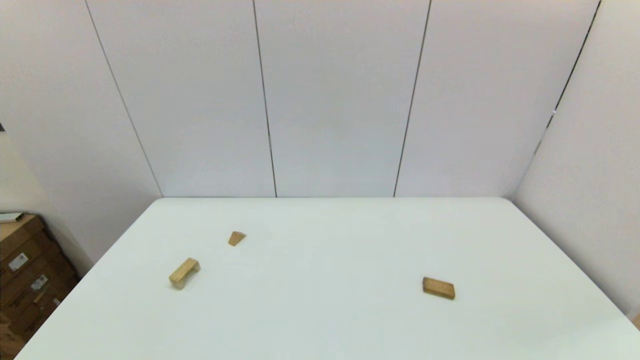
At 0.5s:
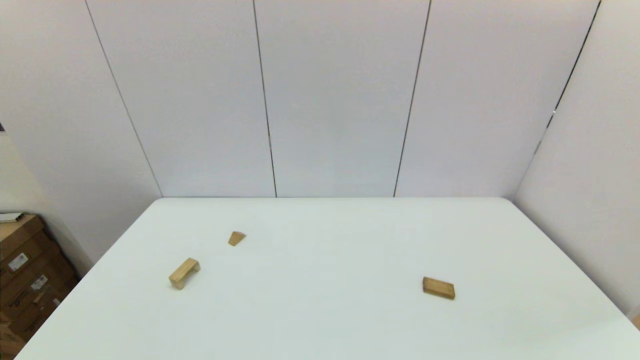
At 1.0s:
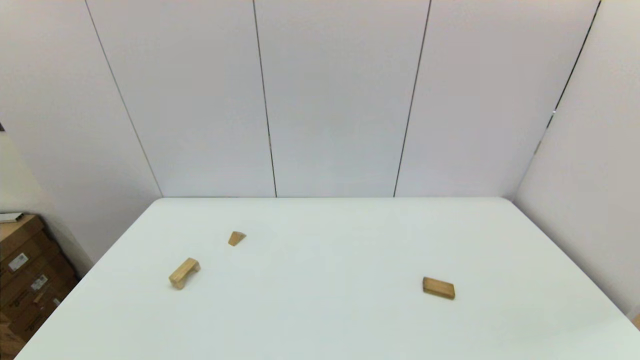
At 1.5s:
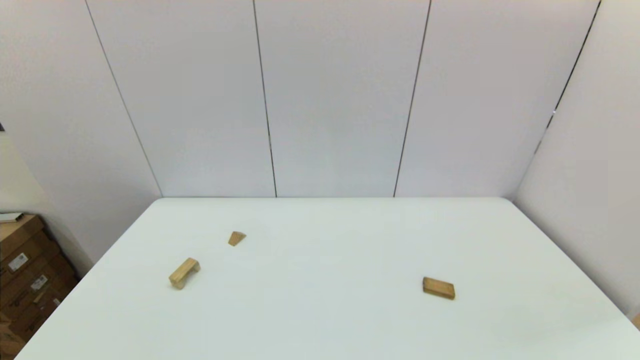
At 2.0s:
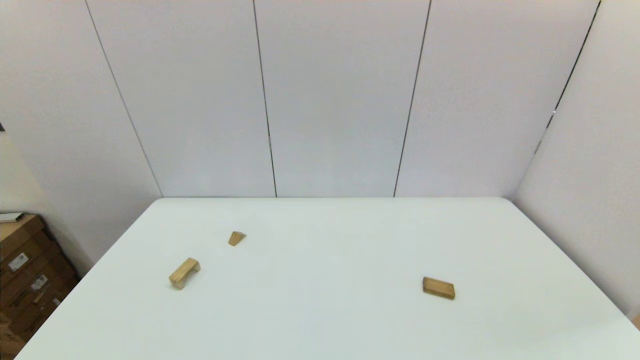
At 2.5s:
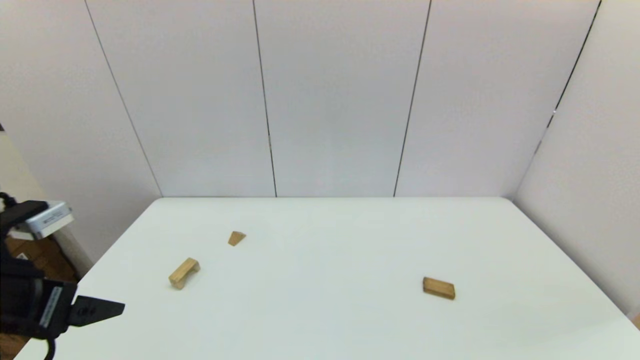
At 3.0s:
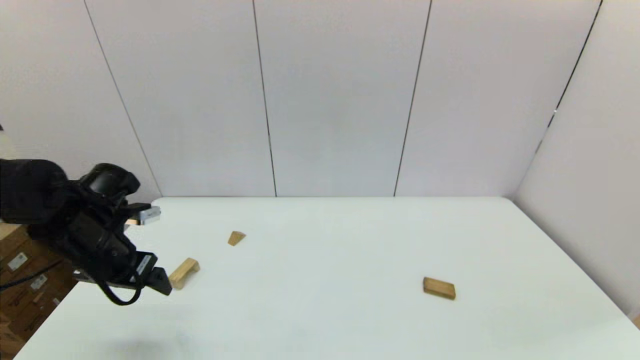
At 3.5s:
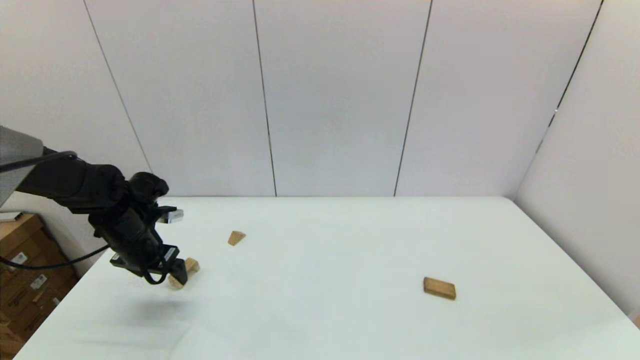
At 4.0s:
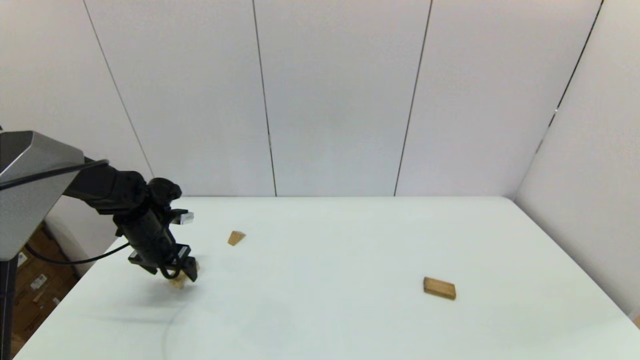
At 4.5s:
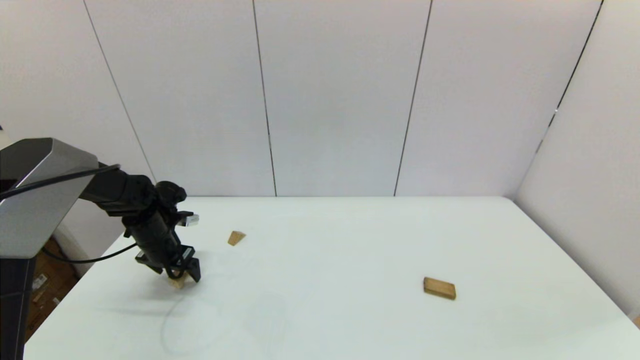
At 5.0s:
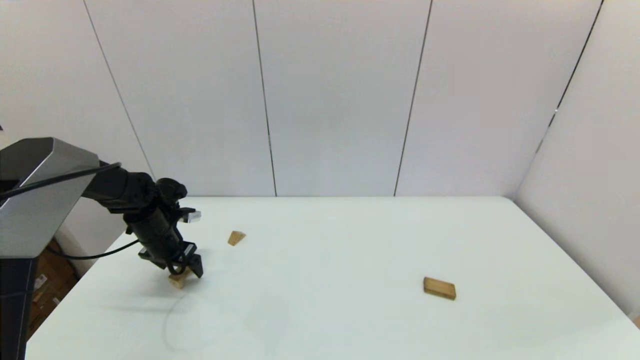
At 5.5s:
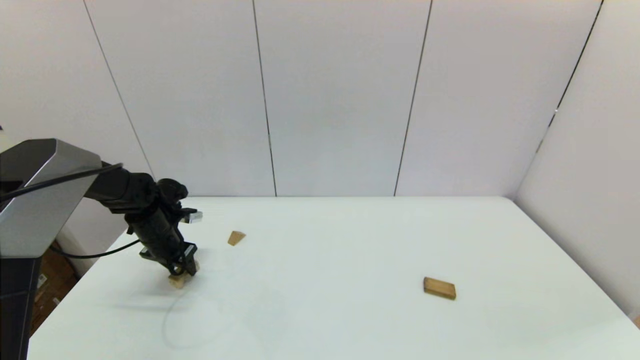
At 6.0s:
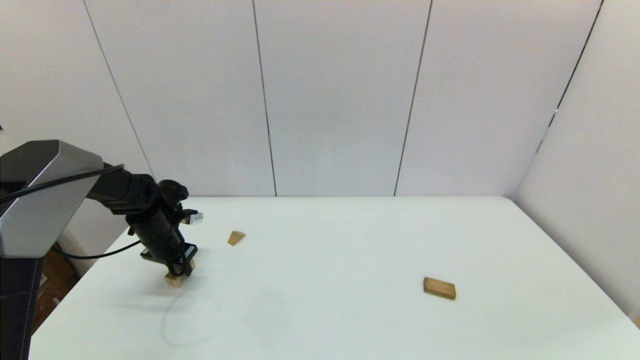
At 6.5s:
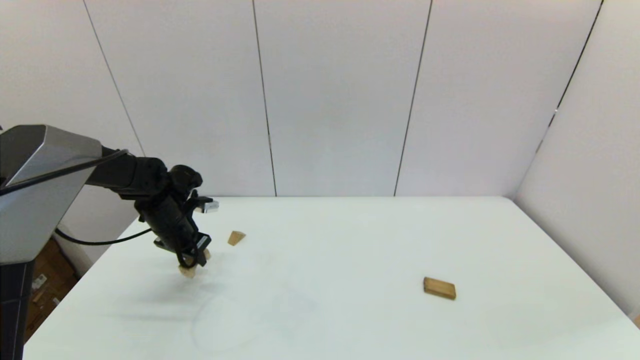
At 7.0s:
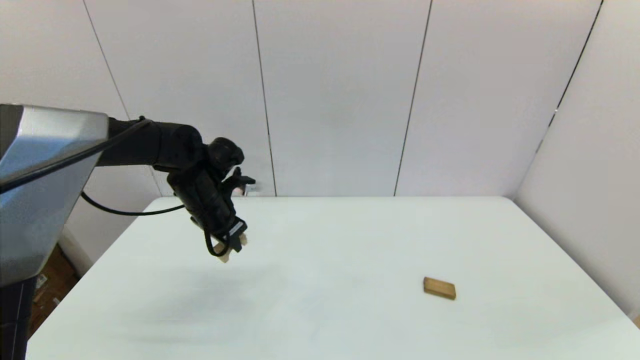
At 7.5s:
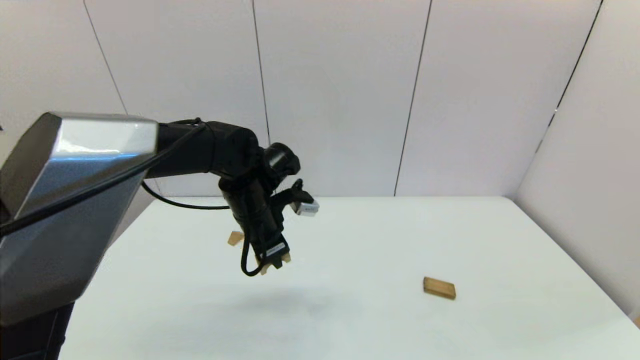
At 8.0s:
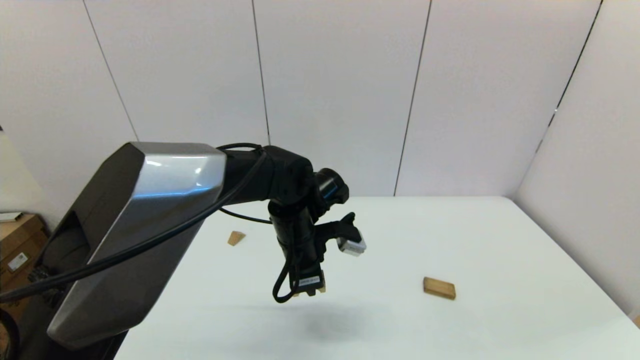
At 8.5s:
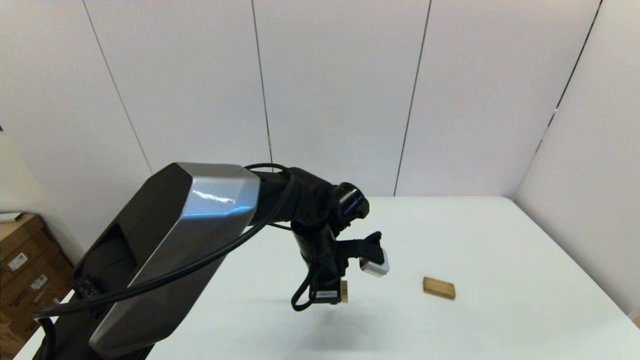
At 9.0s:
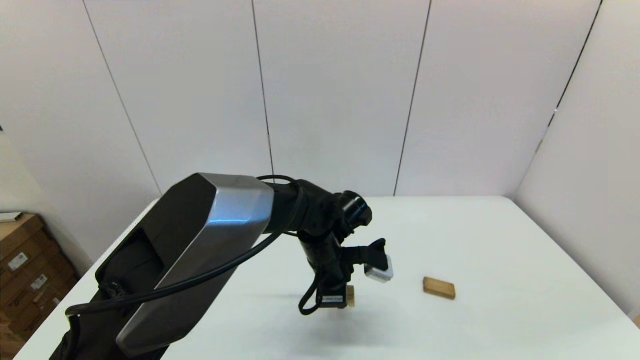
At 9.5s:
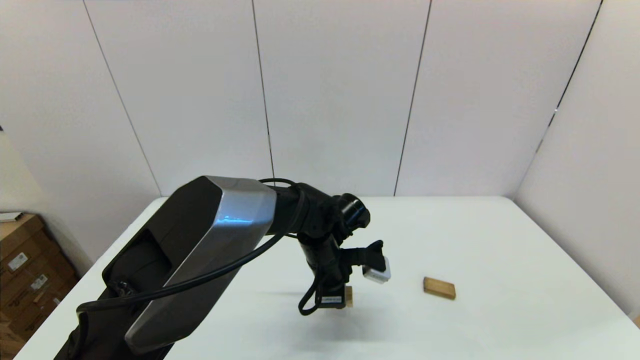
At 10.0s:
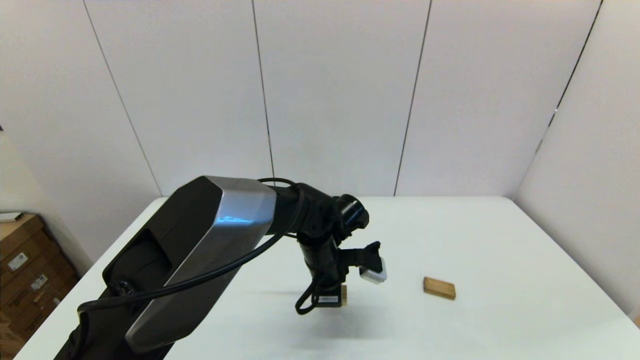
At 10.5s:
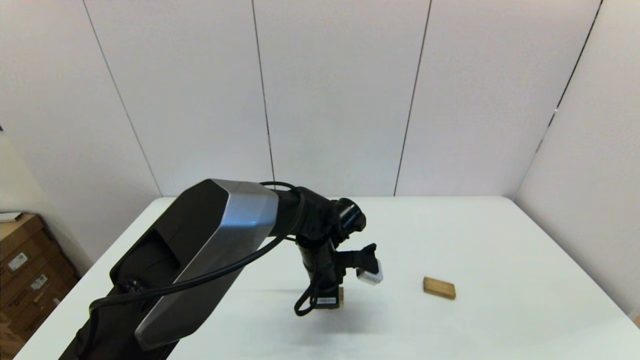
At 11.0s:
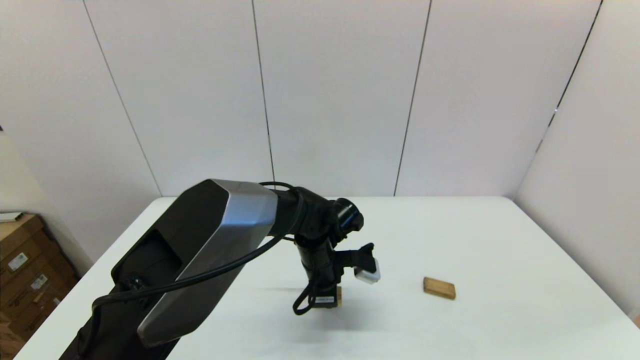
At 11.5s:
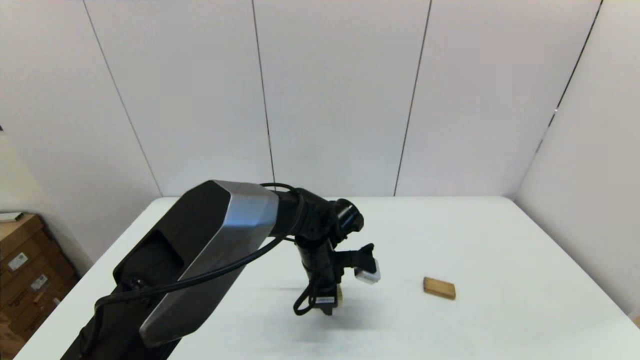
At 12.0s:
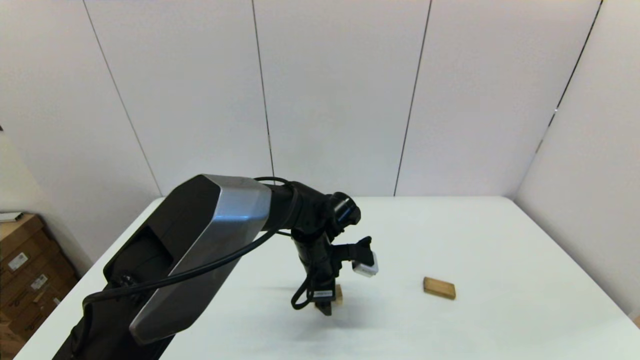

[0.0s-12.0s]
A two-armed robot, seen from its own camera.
Task of the whole recording: place the arched building blocks in the center of the table, set up the rectangular building blocks, and then set up the triangular building blocks.
Step, 2.5s to 5.5s: Grasp the arch-shaped block with the left gripper.
Step, 6.0s to 11.5s: Place the arch-shaped block in the center of view with the left gripper.
2.0s to 4.0s: The left gripper goes about 40 cm forward.
4.0s to 6.0s: The left gripper closes.
6.0s to 8.0s: The left gripper heads to the right, covering about 30 cm.
8.0s to 10.0s: The left gripper moves downward, approximately 5 cm.
10.0s to 12.0s: The left gripper opens up.

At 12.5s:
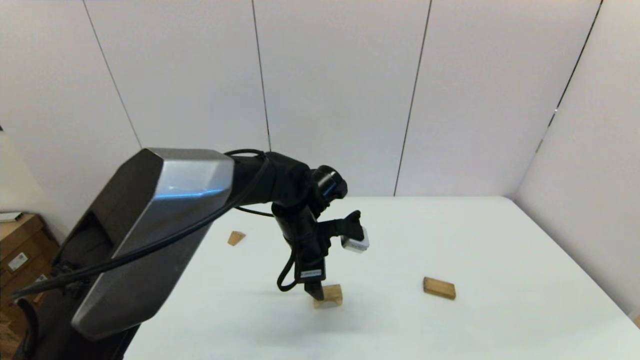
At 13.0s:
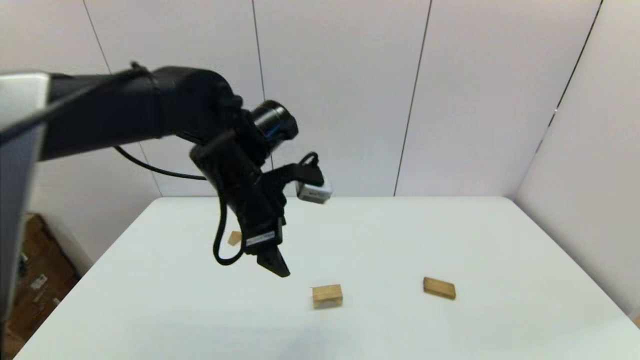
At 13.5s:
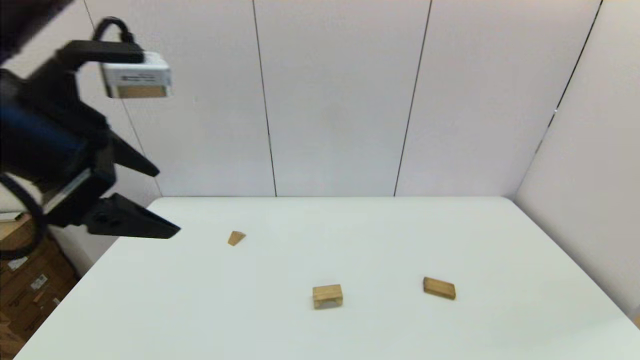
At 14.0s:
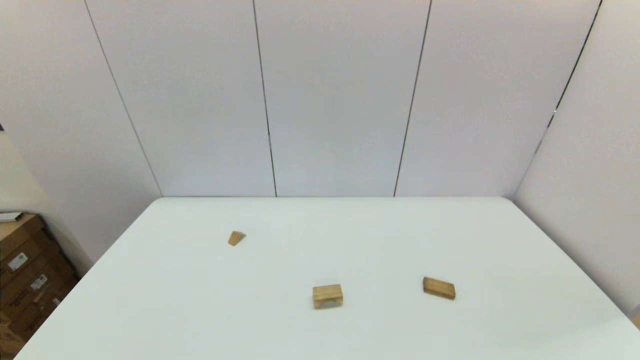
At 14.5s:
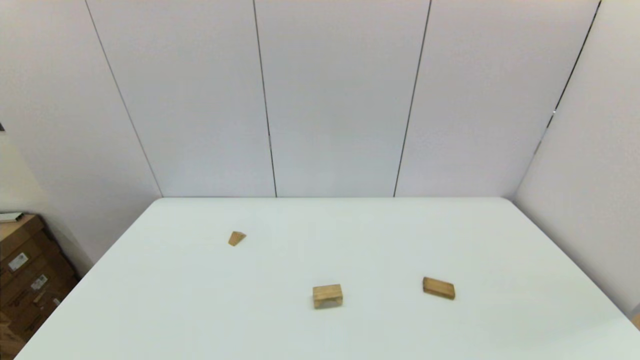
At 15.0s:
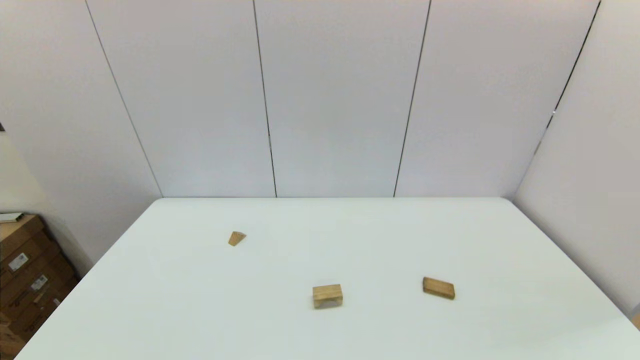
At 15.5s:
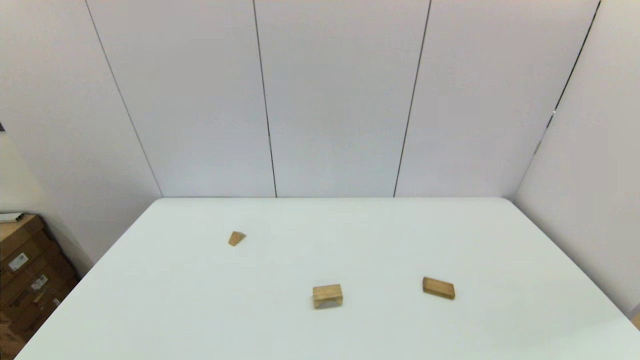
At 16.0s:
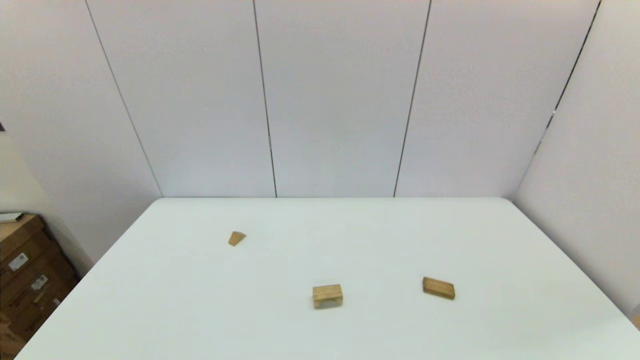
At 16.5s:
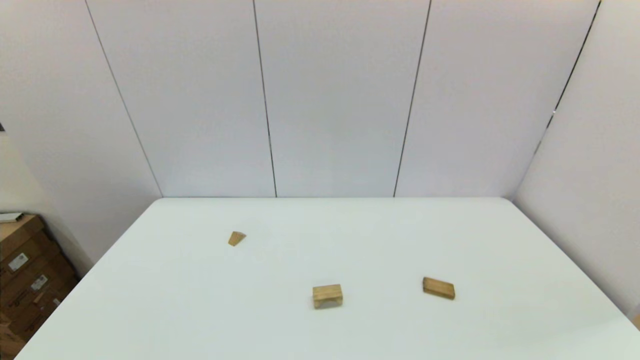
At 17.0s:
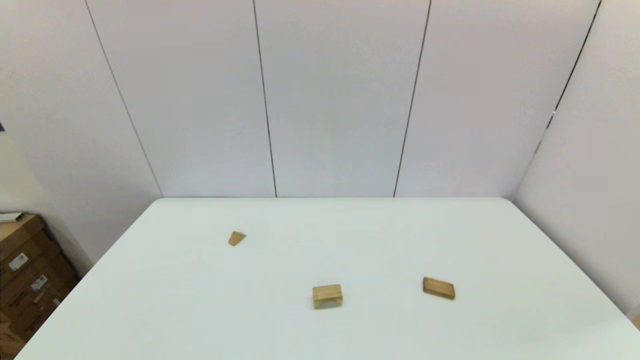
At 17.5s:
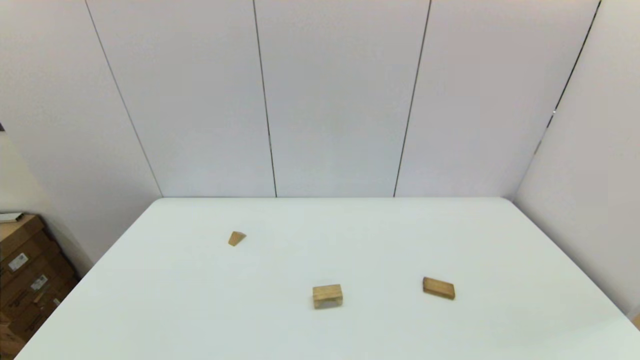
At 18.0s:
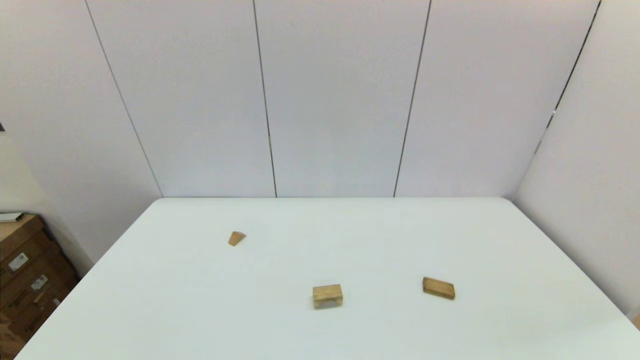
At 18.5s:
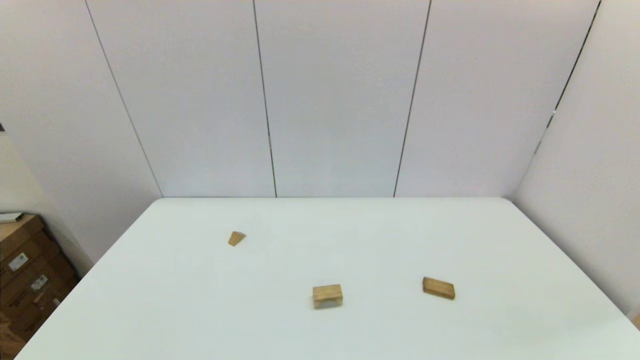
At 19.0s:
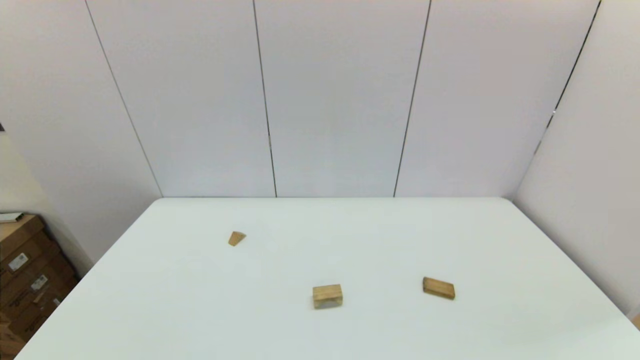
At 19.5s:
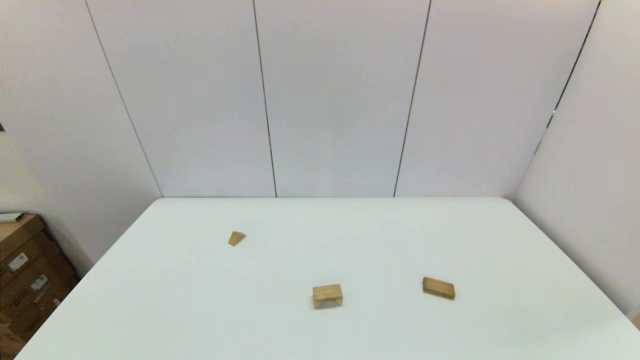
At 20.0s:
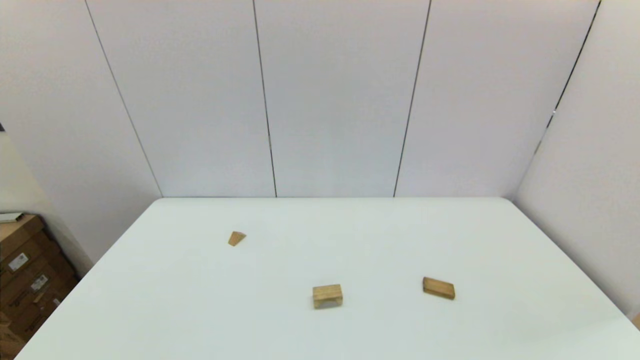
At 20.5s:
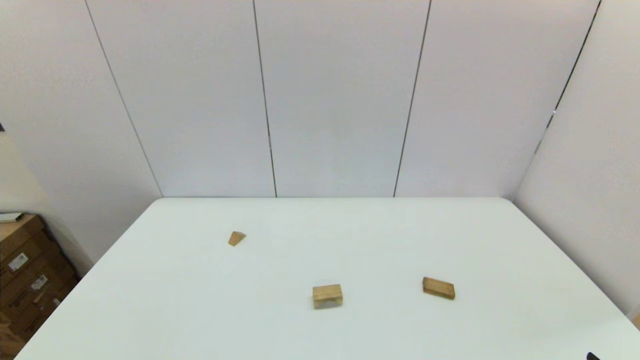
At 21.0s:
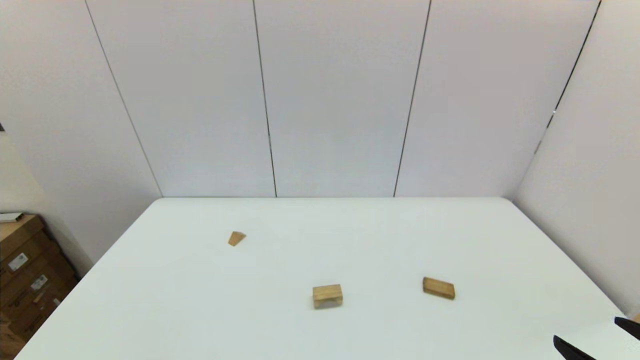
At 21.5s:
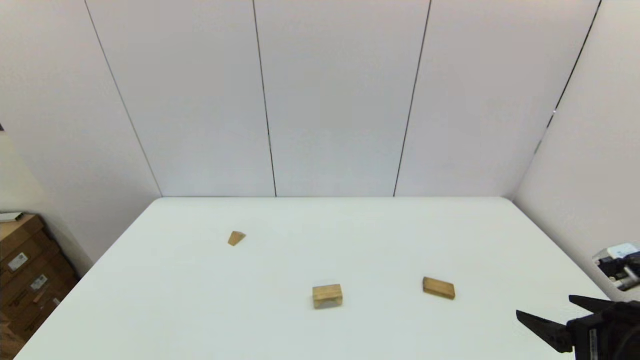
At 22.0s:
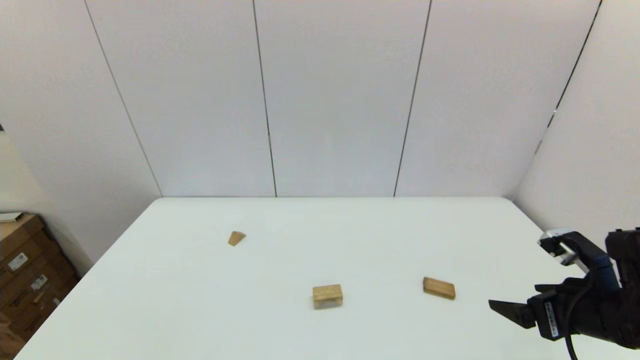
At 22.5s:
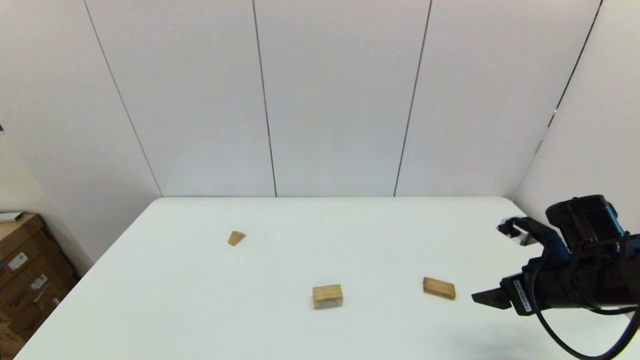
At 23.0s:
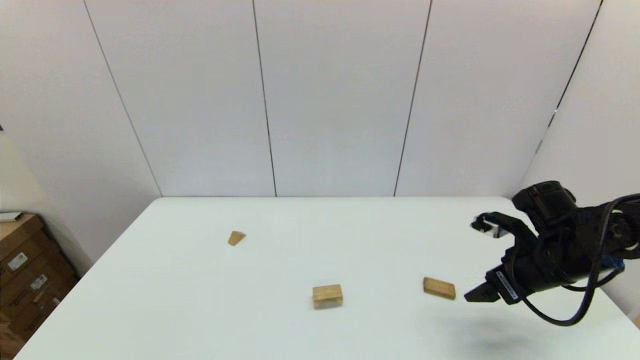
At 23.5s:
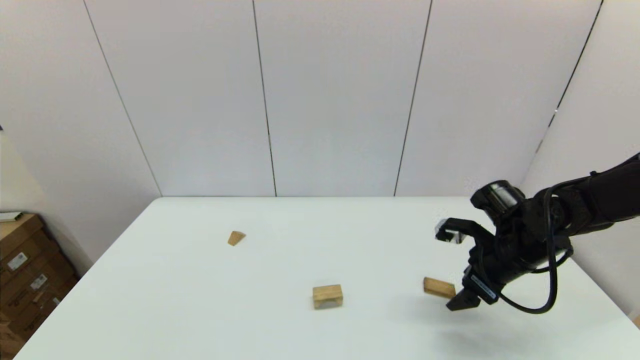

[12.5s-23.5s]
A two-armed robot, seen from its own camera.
Task of the whole recording: place the arched building blocks in the center of the table, set up the rectangular building blocks, and then set up the triangular building blocks.
12.5s to 14.5s: The left gripper heads backward, to the left and upward, covering roughly 50 cm.
20.0s to 21.5s: The right gripper is displaced forward by about 15 cm.
21.5s to 23.5s: The right gripper goes some 20 cm forward.
